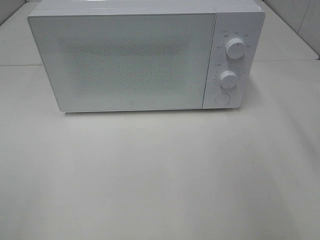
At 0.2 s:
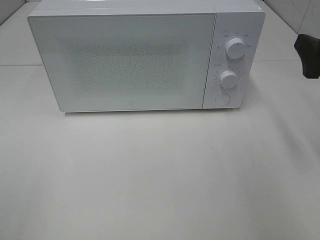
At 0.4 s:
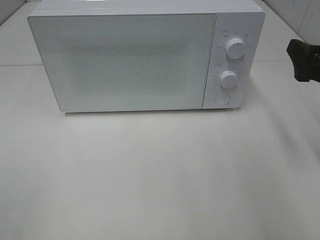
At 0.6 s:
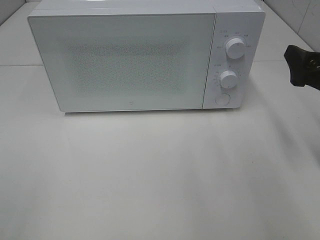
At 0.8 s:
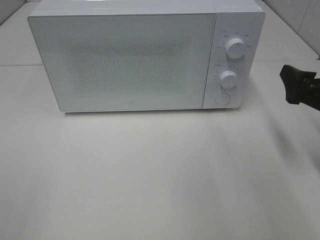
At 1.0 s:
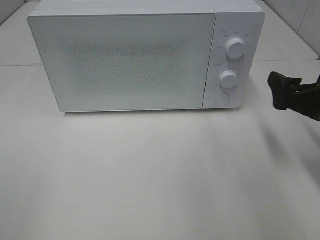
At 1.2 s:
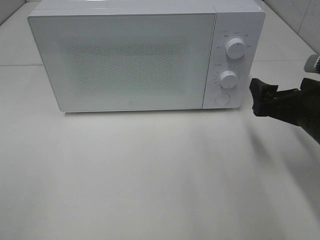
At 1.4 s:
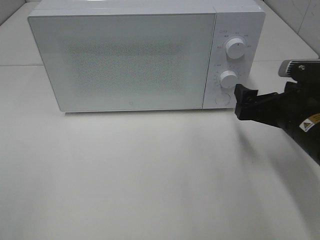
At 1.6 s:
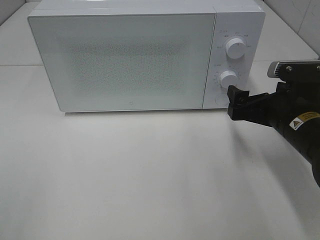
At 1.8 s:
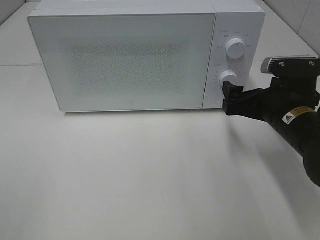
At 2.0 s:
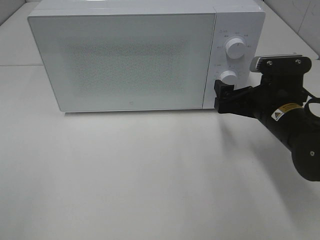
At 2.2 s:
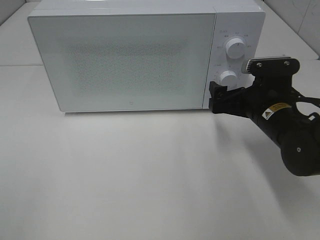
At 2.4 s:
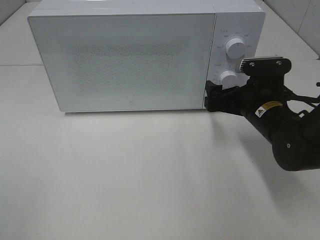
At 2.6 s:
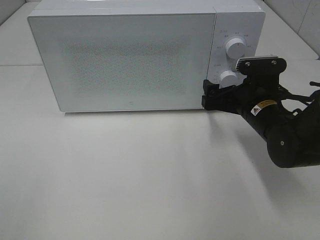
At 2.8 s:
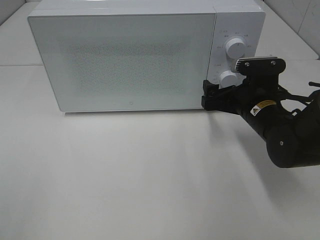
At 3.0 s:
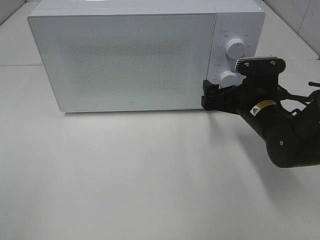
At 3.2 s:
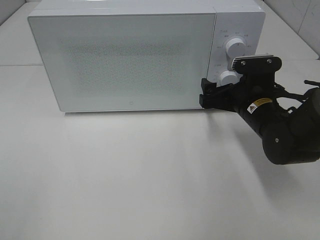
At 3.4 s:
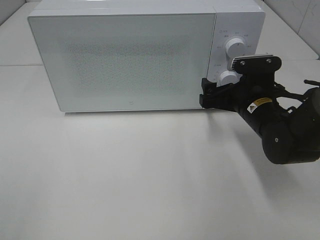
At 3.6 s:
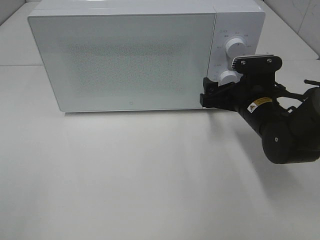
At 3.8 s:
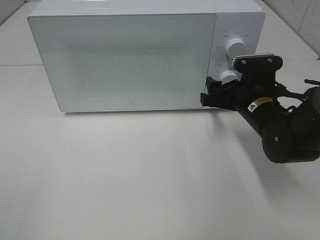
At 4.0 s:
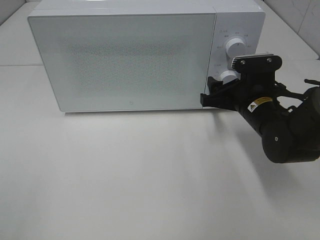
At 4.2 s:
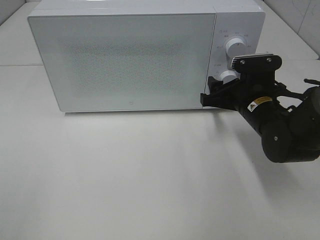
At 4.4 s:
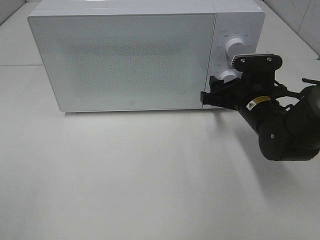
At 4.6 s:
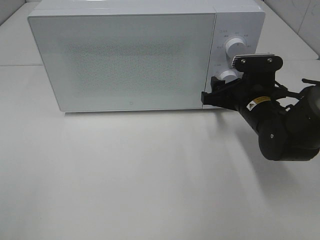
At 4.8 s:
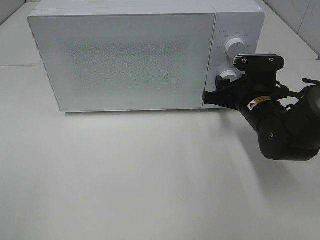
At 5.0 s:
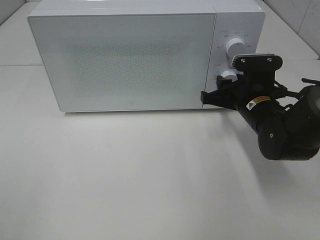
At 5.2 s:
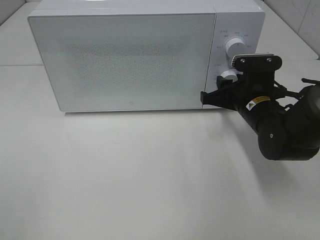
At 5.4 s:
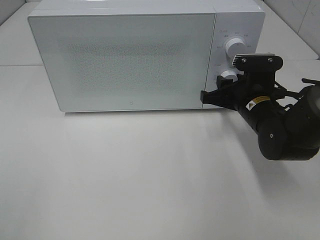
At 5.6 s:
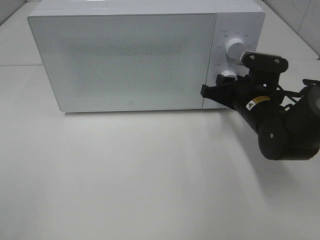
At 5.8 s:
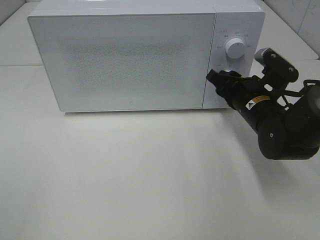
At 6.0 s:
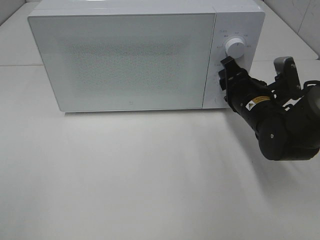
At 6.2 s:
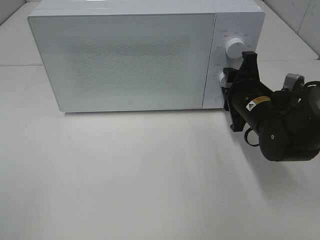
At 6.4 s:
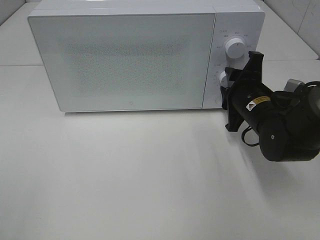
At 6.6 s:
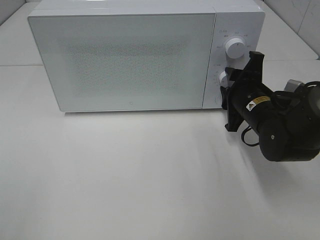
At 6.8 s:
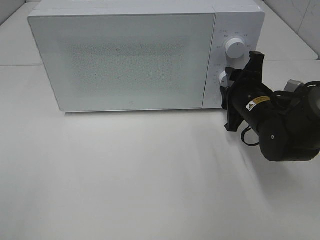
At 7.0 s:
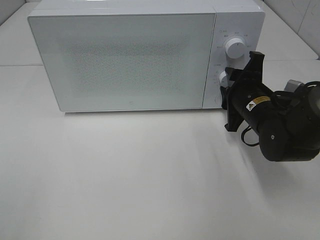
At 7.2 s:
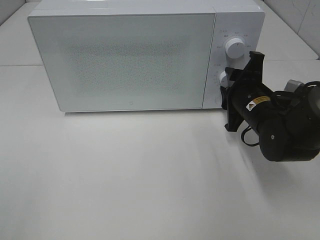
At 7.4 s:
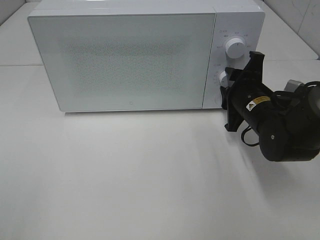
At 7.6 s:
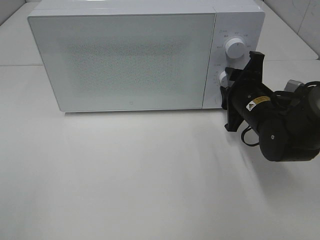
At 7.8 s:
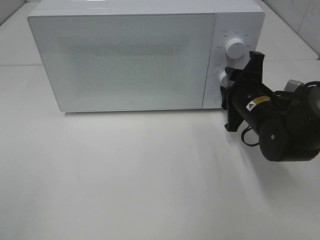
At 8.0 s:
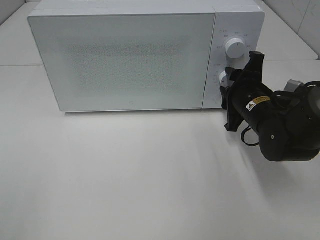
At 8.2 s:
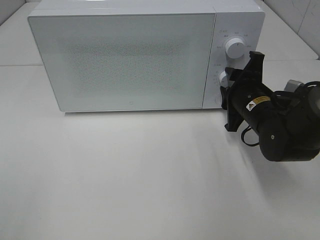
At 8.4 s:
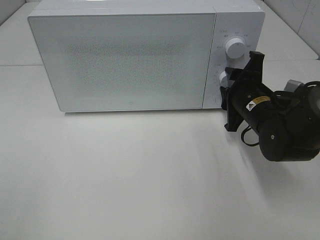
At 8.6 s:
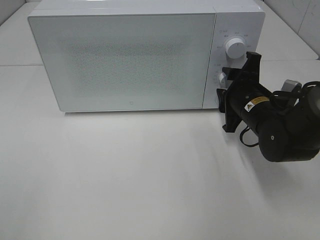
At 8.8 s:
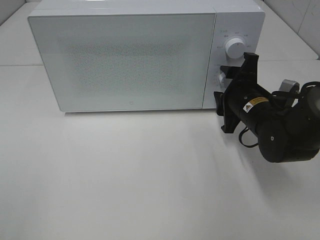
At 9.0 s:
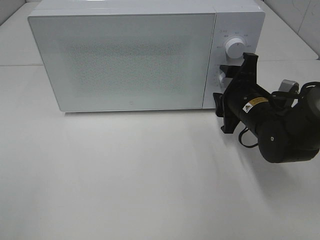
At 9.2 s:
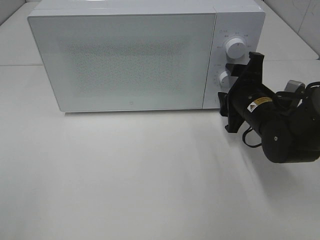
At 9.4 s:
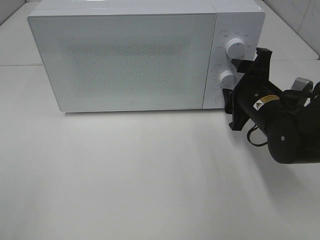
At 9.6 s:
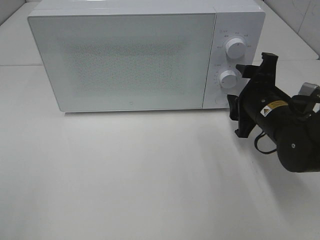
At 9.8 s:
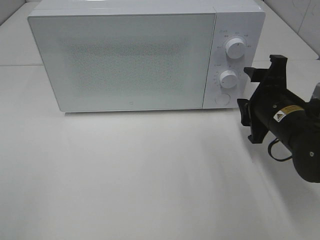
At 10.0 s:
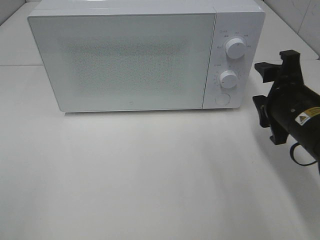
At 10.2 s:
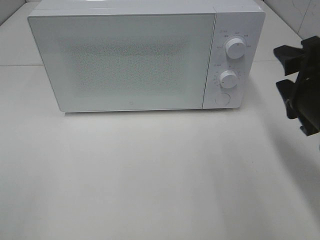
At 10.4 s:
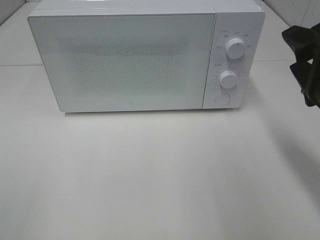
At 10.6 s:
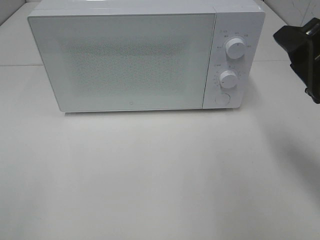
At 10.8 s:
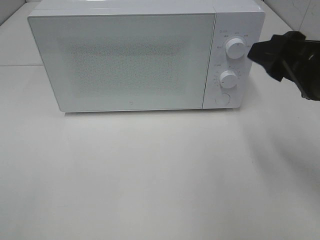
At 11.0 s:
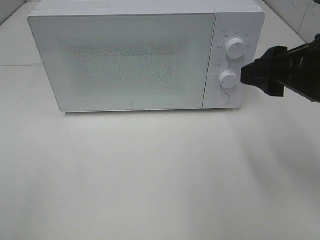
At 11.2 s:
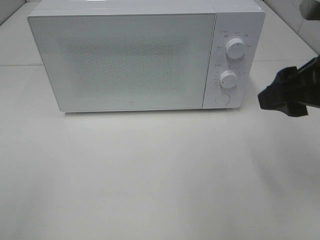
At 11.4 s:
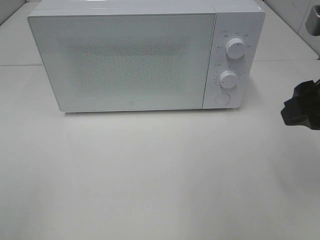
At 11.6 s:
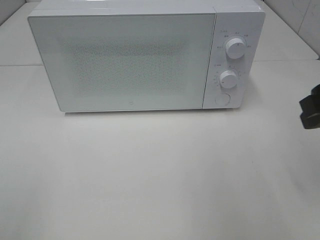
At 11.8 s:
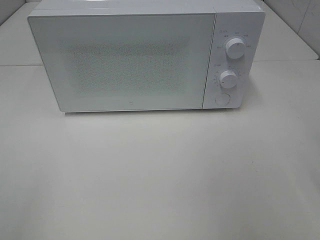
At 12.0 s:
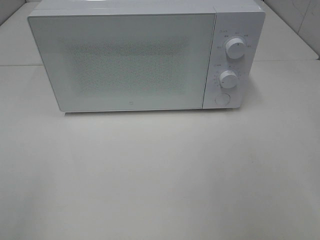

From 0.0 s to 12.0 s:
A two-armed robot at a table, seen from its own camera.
Task of the whole recording: Heat the burger.
Step, from 0.0 s to 8.4 s: Right hand: twist timer button.
From 0.0 s to 1.6 s: The right gripper is displaced downward, to the left and forward by some 15 cm.
From 1.6 s to 3.0 s: The right gripper is displaced forward by approximately 5 cm.
From 3.0 s to 4.4 s: The two grippers keep their place.
From 7.6 s to 9.0 s: Both grippers stay about where they are.
From 9.0 s to 10.4 s: The right gripper shifts approximately 20 cm backward, upward and to the right.
From 10.4 s to 12.0 s: The right gripper is displaced upward and to the right by roughly 10 cm.

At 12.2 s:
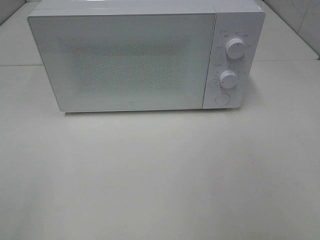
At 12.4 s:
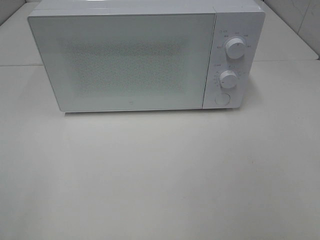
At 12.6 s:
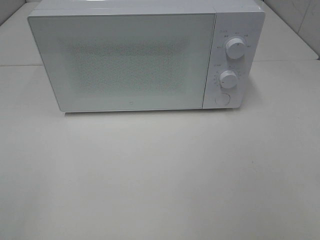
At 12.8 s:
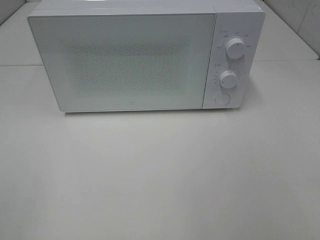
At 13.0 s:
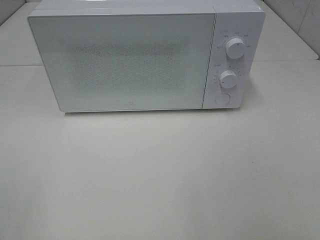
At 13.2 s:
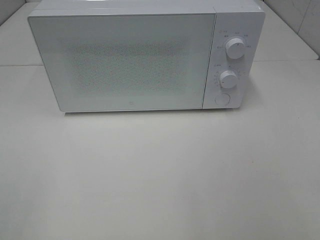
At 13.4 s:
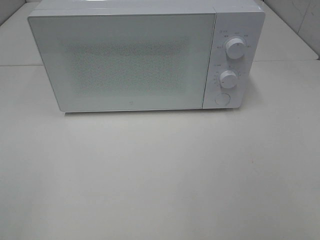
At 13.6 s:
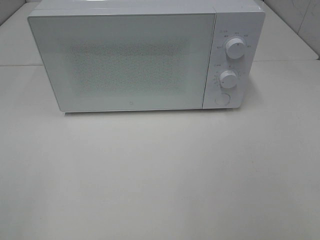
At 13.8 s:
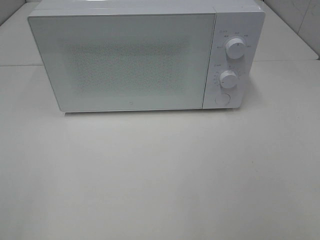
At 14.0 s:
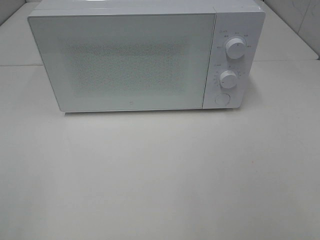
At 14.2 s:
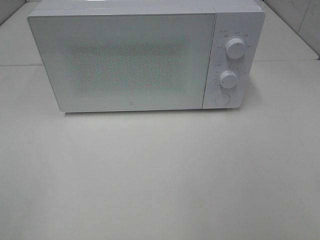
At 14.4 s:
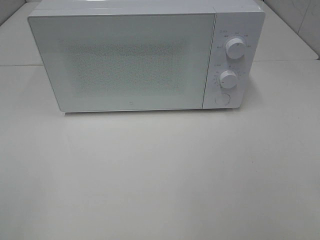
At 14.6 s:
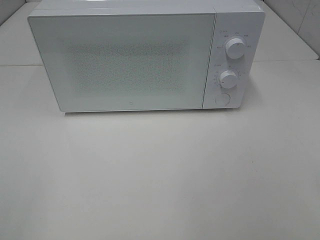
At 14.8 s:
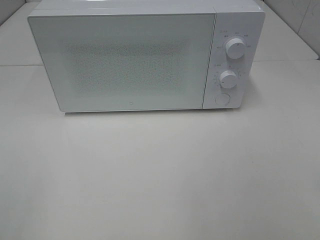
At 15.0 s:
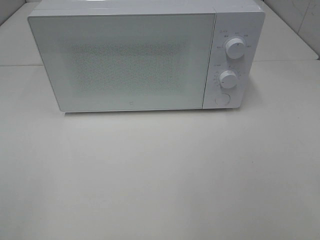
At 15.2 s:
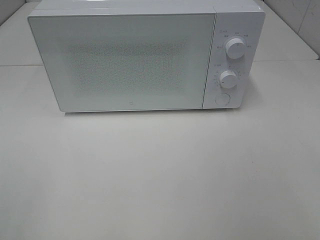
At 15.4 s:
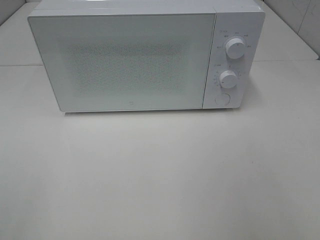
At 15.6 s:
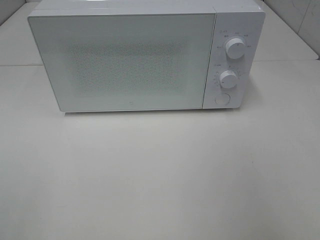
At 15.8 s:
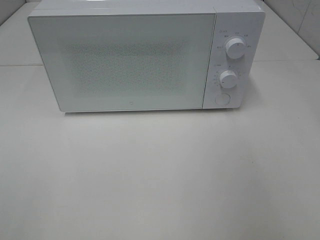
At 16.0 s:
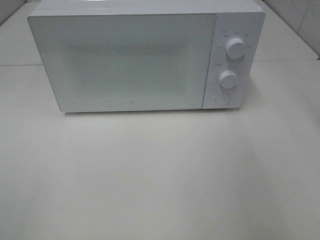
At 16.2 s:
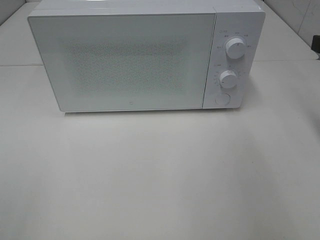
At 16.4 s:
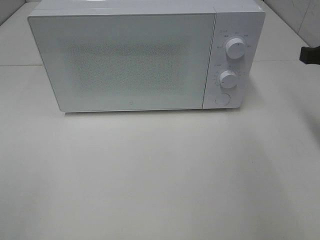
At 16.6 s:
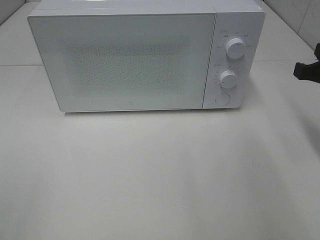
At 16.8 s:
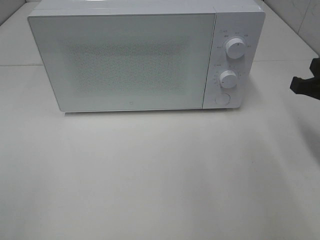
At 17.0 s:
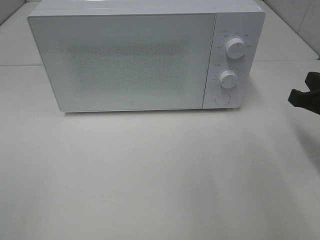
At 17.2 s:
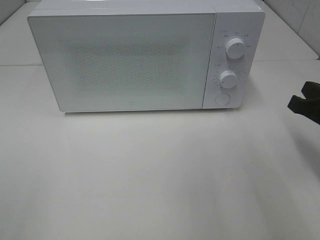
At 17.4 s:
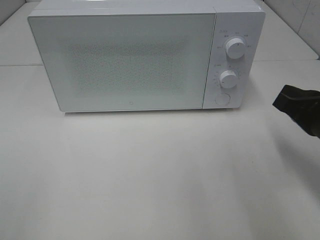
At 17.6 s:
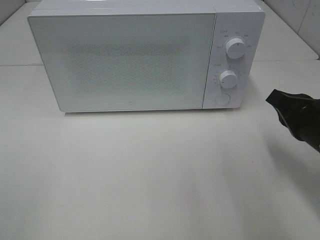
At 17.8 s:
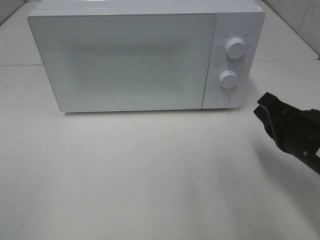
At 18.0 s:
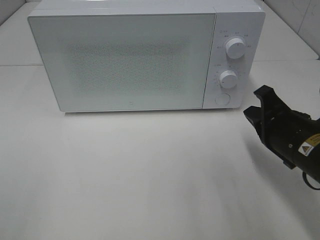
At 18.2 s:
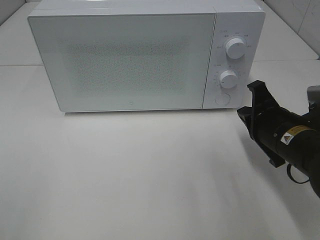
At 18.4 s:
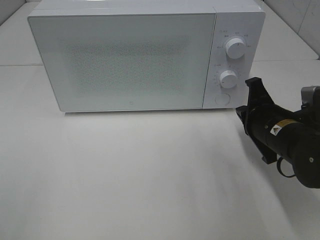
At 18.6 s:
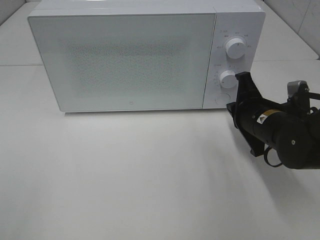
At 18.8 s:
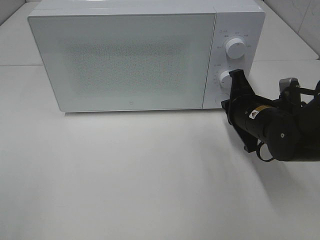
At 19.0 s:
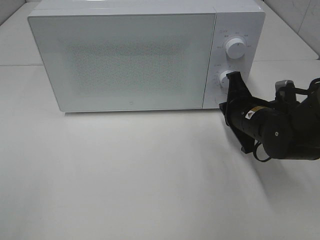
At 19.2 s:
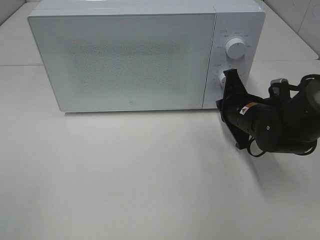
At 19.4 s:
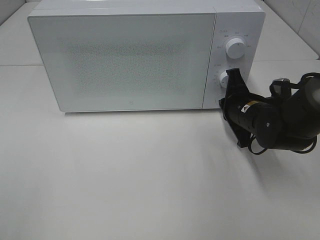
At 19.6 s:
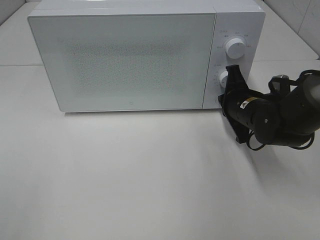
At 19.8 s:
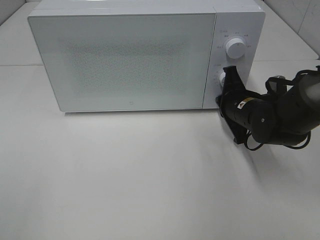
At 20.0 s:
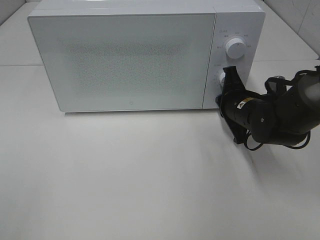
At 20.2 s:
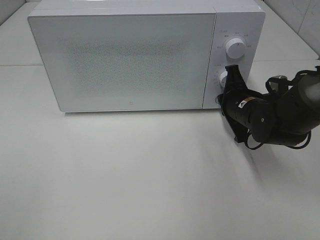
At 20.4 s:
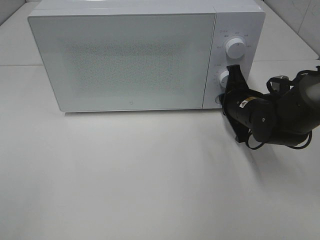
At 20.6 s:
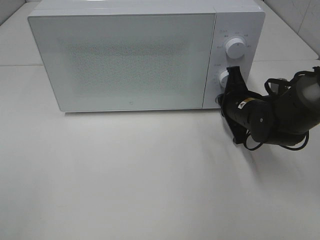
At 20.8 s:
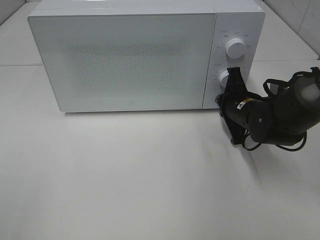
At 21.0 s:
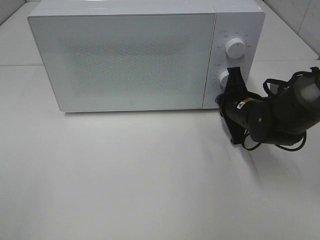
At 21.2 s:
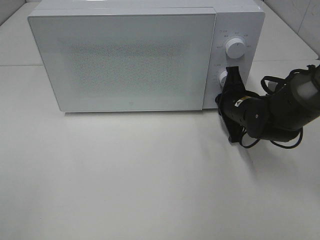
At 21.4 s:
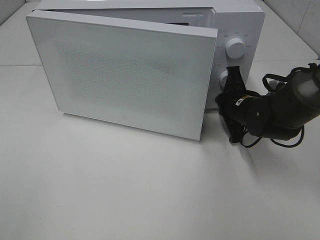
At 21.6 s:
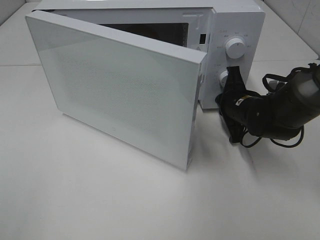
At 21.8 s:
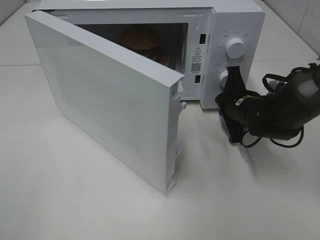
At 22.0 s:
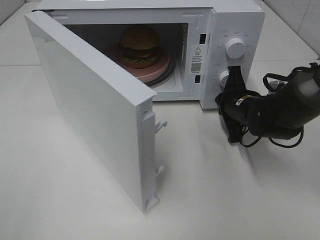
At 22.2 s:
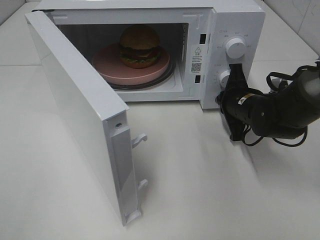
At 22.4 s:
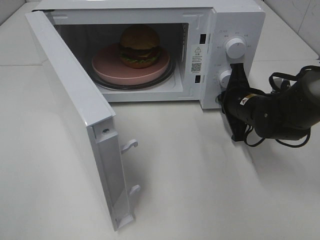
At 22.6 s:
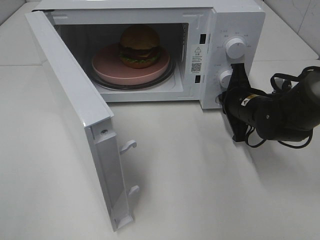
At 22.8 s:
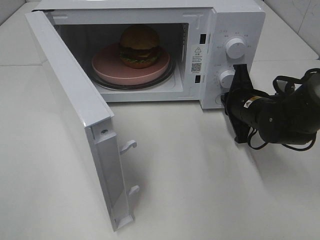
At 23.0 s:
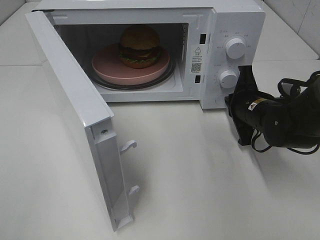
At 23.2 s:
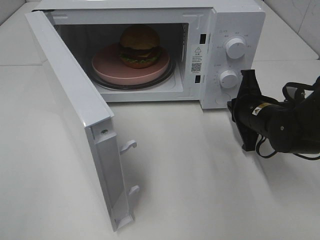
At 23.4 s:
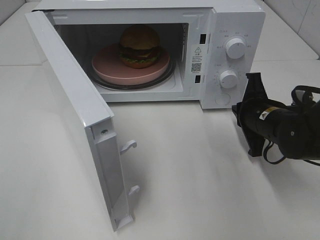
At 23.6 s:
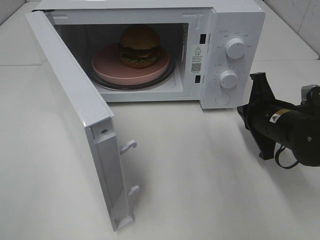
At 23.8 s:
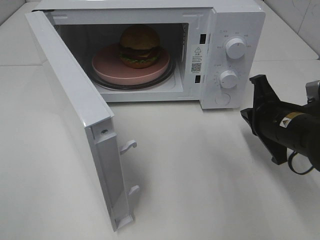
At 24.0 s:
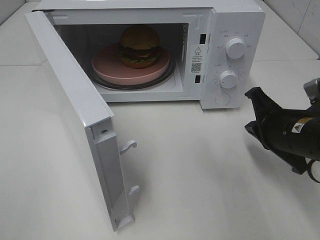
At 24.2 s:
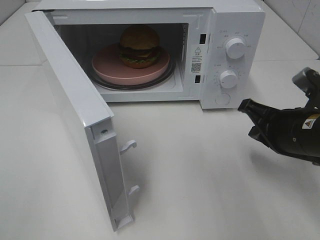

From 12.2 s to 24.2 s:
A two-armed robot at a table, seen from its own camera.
Task of the whole recording: Heat the burger.
Step, from 12.2 s to 22.8 s: Right hand: press the switch.
From 15.2 s to 16.6 s: The right gripper moves forward and downward, approximately 25 cm, and closes.
From 16.6 s to 18.2 s: The right gripper shifts about 15 cm to the left and downward.
From 18.2 s to 19.8 s: The right gripper travels forward by about 10 cm.
From 19.8 s to 21.2 s: The grippers make only small movements.
From 22.6 s to 24.2 s: The right gripper shifts some 15 cm backward and upward.
